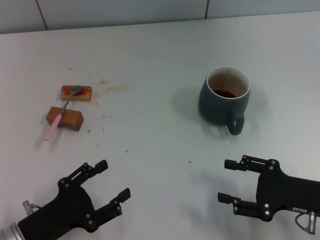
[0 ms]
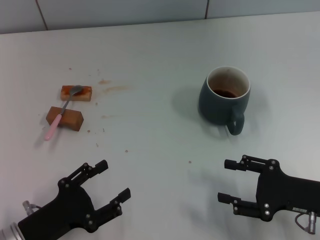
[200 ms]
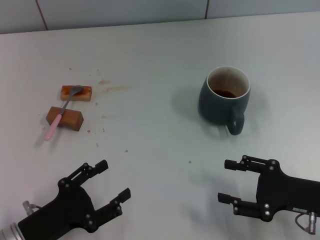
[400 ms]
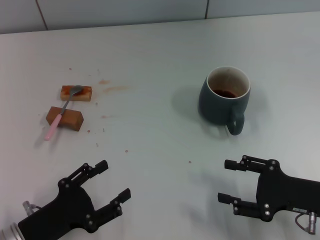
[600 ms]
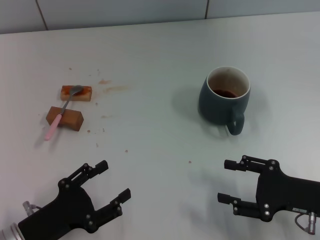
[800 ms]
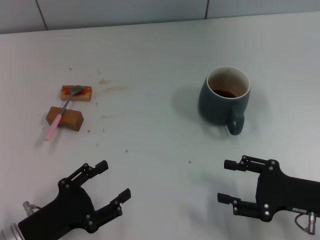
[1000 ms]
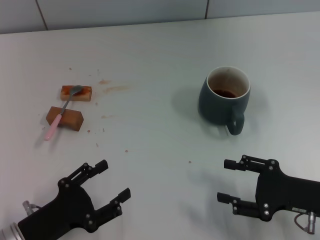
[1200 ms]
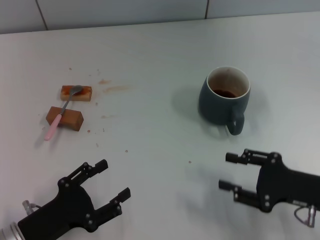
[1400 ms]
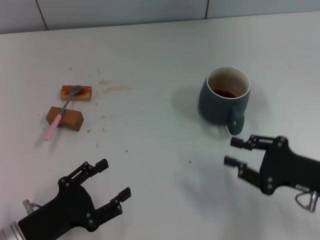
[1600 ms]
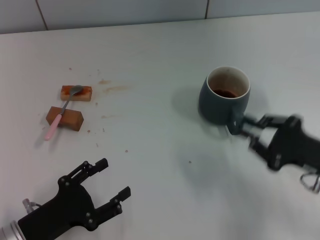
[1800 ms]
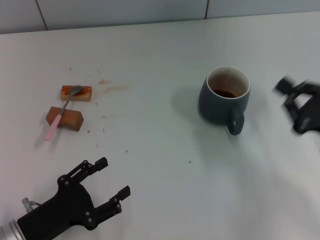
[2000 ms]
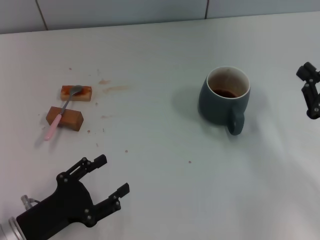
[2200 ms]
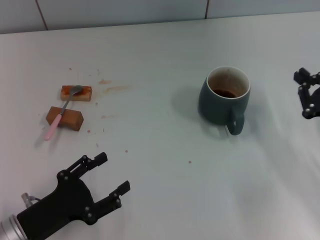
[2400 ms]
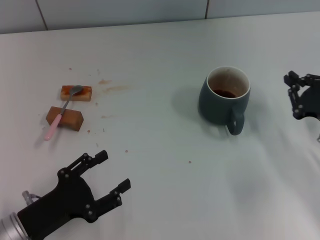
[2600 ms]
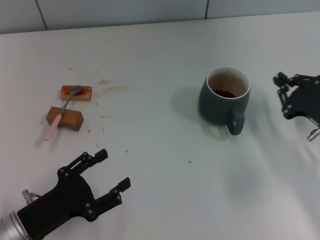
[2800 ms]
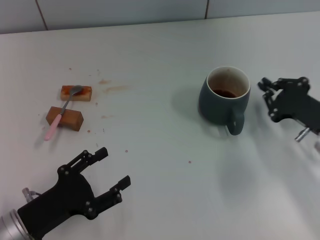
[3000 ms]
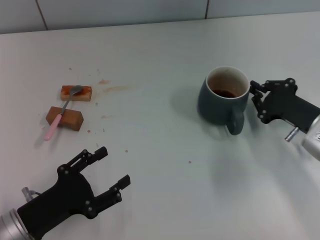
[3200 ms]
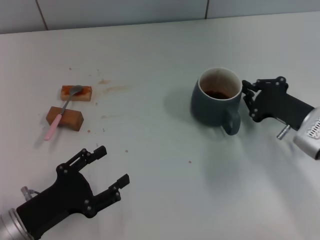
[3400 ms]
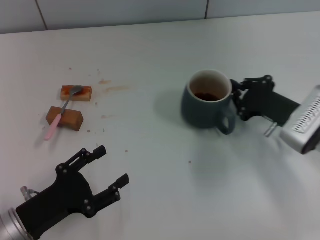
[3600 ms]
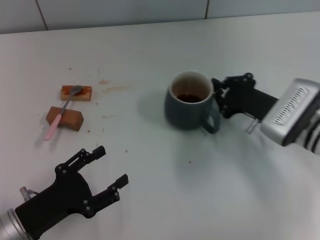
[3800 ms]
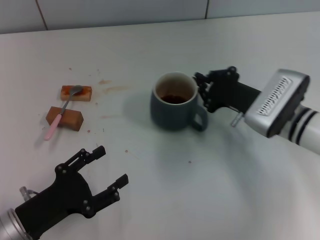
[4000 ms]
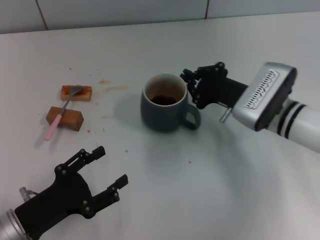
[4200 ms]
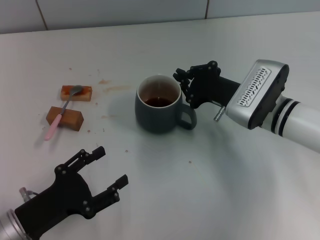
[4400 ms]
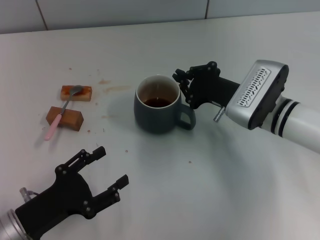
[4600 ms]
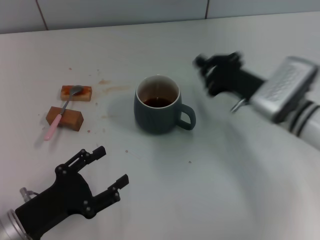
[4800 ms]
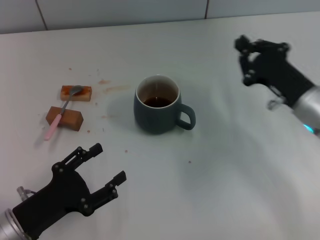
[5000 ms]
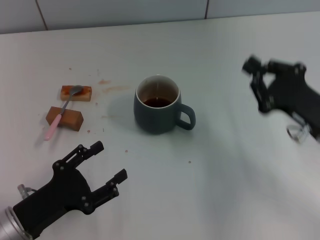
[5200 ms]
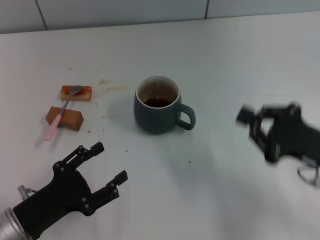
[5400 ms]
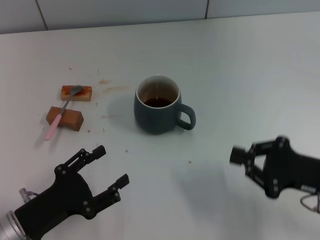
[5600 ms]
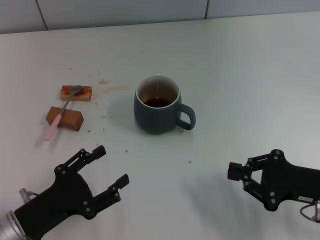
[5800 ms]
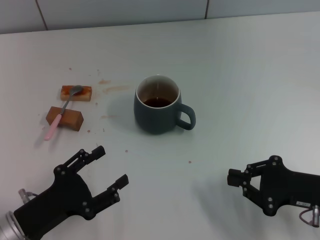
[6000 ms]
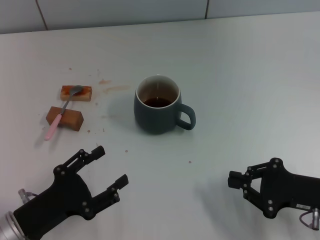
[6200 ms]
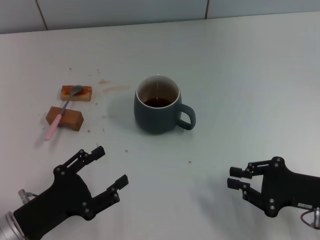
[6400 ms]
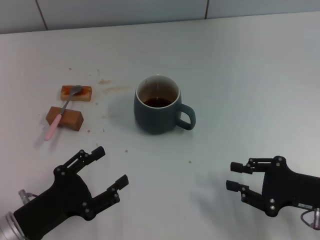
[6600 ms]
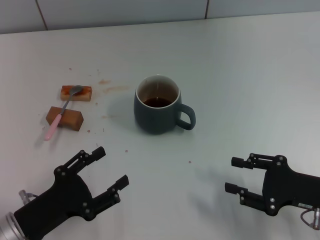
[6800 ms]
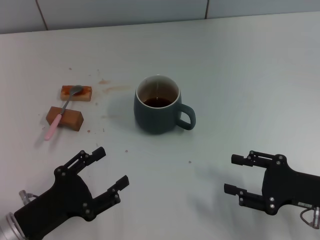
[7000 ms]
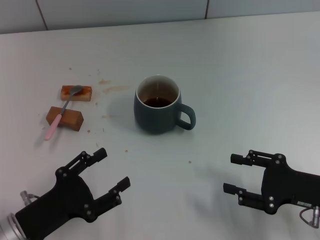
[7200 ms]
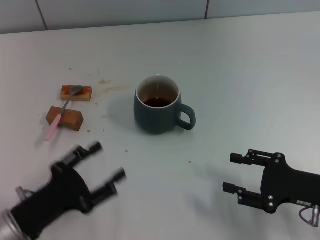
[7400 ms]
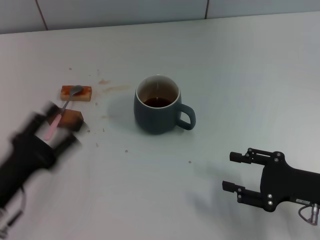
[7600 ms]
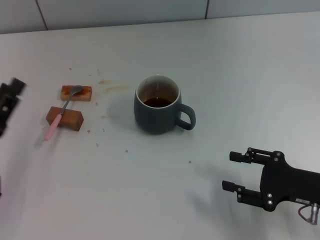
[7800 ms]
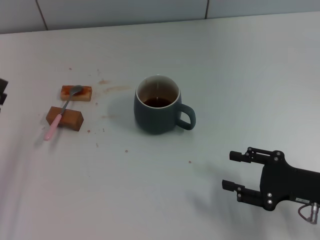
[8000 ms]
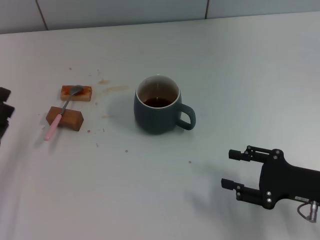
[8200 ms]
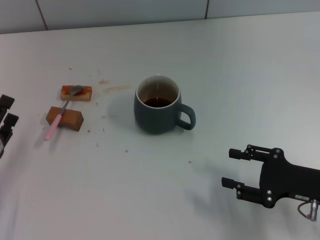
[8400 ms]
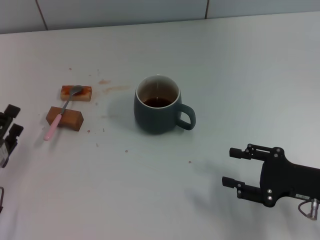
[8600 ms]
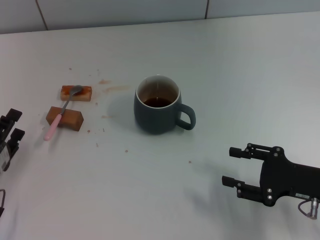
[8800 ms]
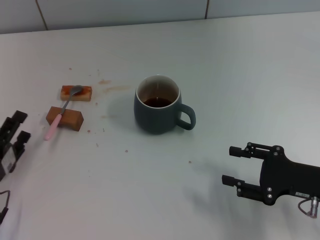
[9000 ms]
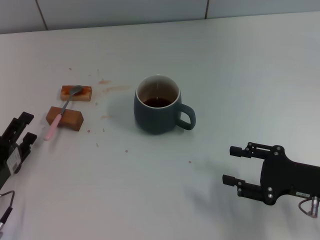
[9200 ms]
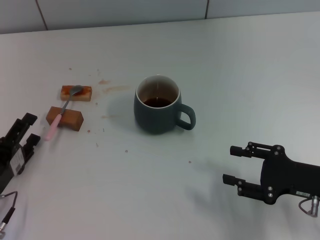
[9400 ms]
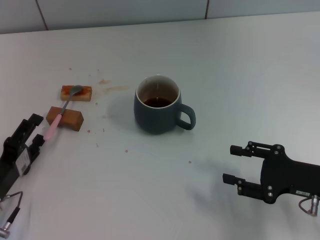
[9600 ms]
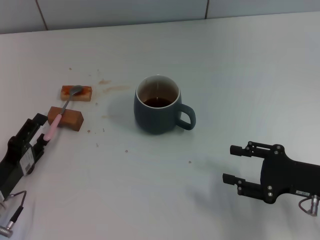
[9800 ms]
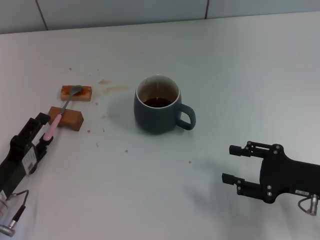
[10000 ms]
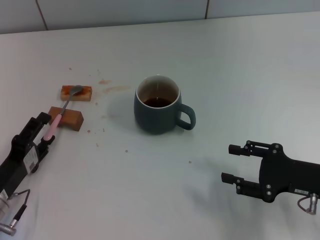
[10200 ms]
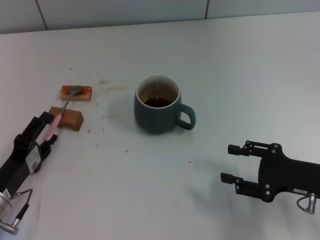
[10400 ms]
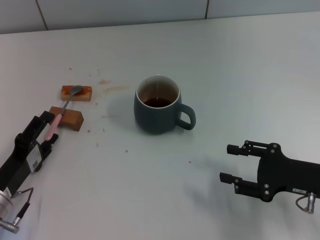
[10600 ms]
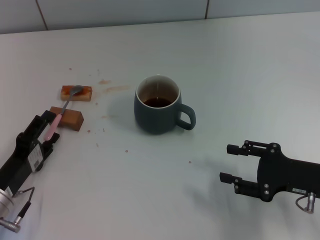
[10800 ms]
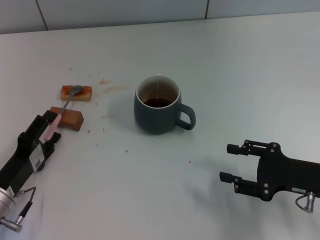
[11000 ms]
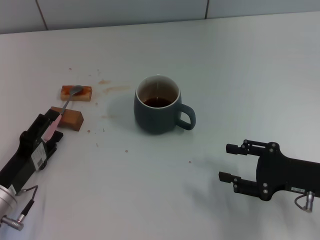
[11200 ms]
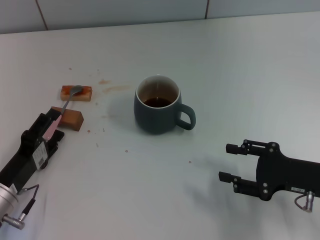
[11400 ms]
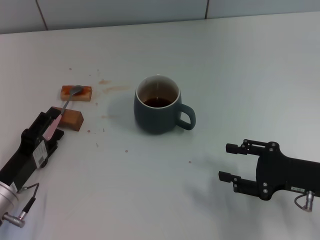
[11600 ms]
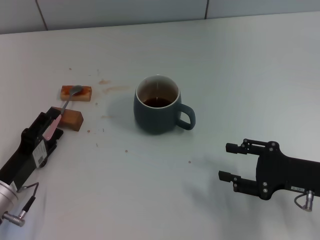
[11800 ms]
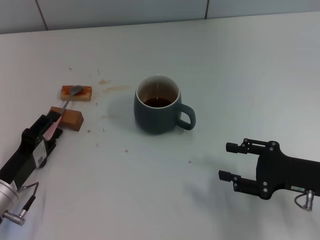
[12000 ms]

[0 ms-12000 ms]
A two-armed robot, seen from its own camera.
Task of the whole recording: Move the grey cup to the center, lift the pink spoon, stir it three times in the cup, and put the spoon into the cup.
Step, 0 ms to 4400 ms: Move the cup with coffee to the center of view with the right gripper.
0 ms to 1600 ms: The grippers make only small movements.
1600 ms to 3000 ms: The right gripper heads forward, covering roughly 10 cm, and closes up.
3000 ms to 4400 ms: The right gripper goes roughly 15 cm to the left and forward.
4400 ms to 6000 ms: The right gripper shifts about 20 cm backward and to the right.
6000 ms to 7600 ms: The right gripper opens.
7600 ms to 9000 ms: The left gripper ends up some 5 cm from where it was.
9000 ms to 12000 ms: The grippers stay close to where they were, moving slightly.

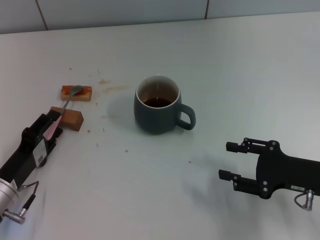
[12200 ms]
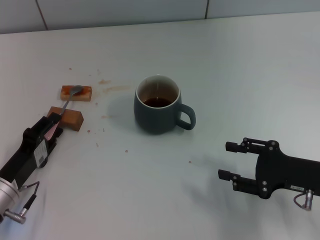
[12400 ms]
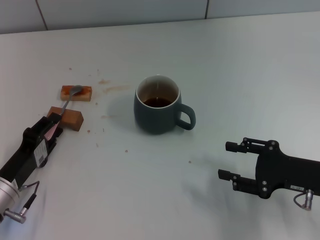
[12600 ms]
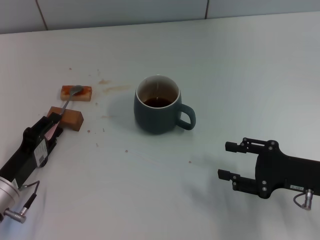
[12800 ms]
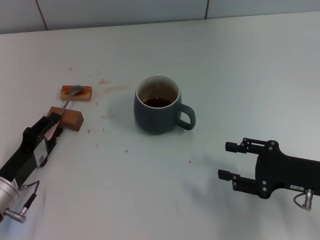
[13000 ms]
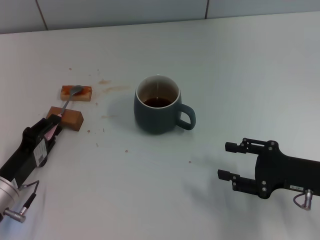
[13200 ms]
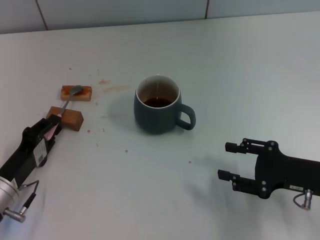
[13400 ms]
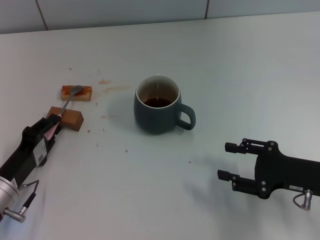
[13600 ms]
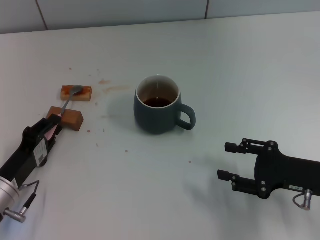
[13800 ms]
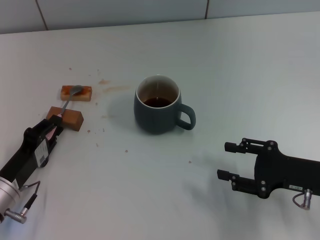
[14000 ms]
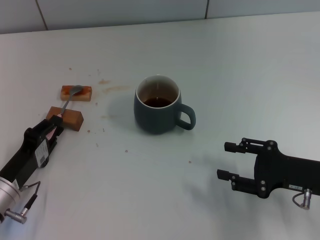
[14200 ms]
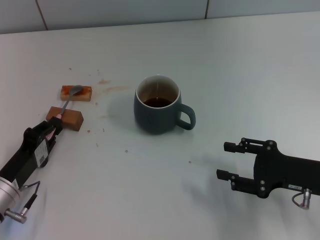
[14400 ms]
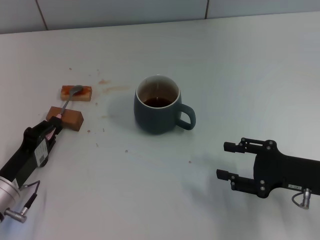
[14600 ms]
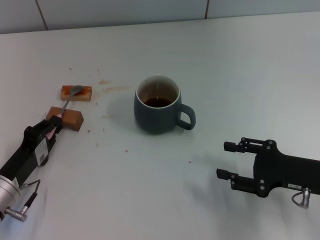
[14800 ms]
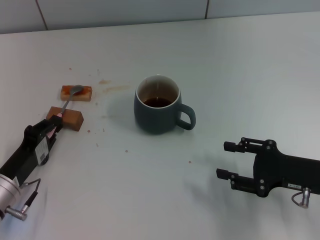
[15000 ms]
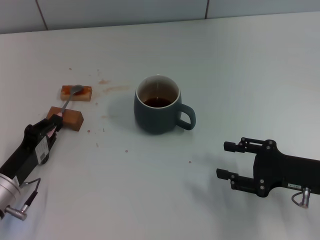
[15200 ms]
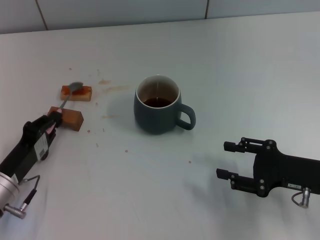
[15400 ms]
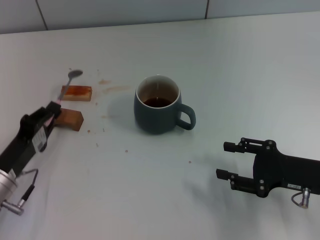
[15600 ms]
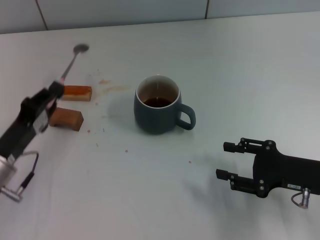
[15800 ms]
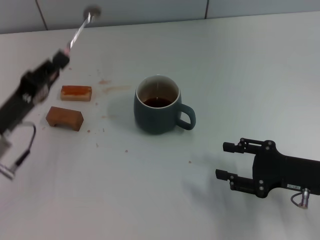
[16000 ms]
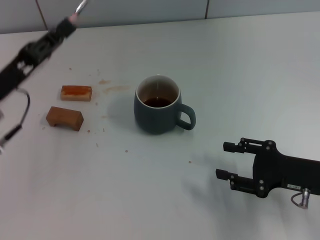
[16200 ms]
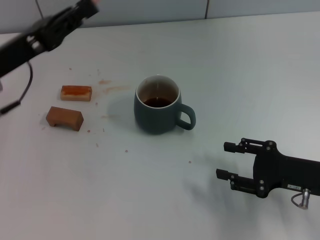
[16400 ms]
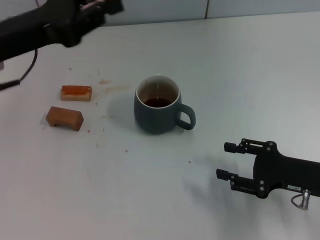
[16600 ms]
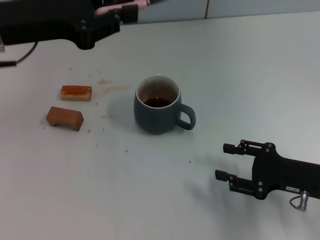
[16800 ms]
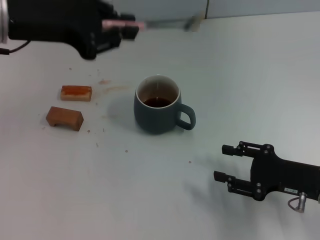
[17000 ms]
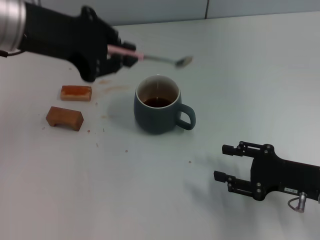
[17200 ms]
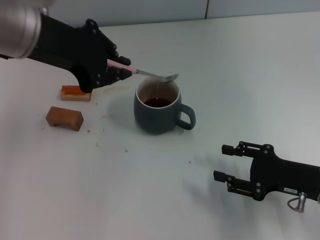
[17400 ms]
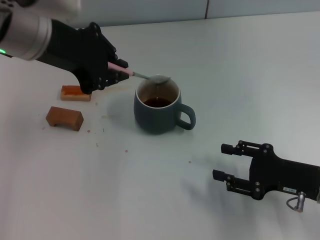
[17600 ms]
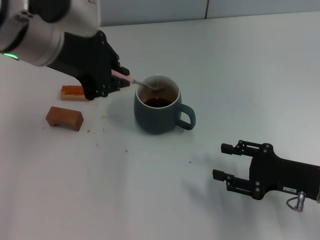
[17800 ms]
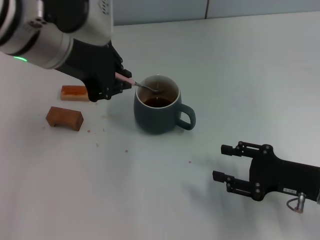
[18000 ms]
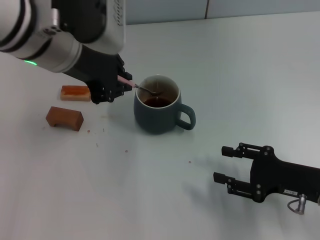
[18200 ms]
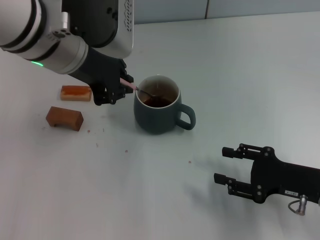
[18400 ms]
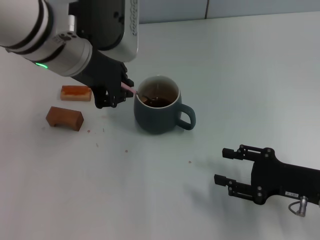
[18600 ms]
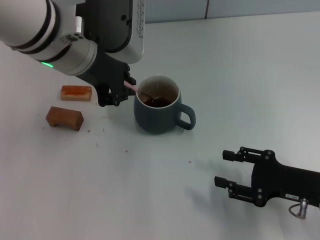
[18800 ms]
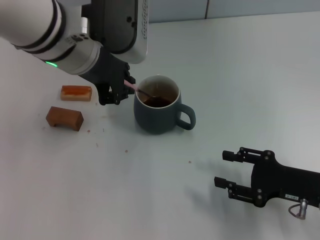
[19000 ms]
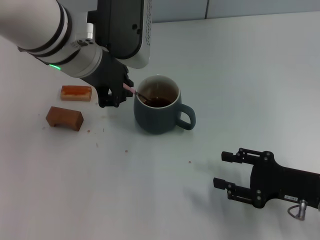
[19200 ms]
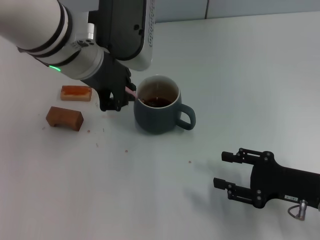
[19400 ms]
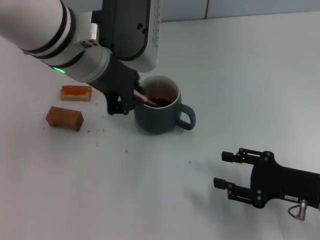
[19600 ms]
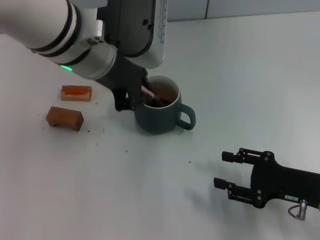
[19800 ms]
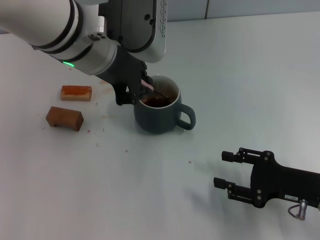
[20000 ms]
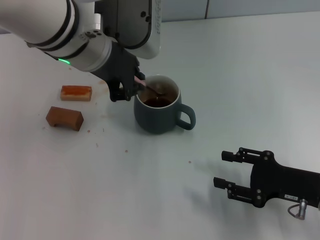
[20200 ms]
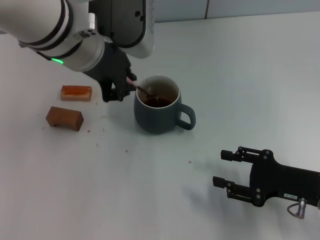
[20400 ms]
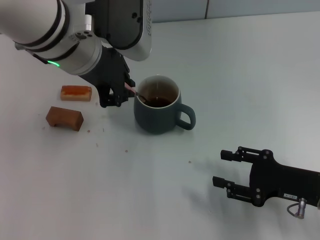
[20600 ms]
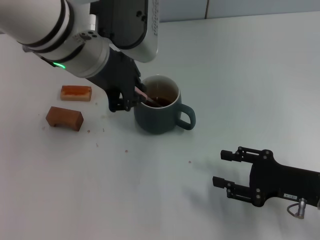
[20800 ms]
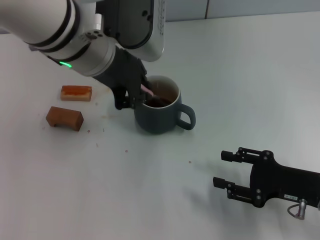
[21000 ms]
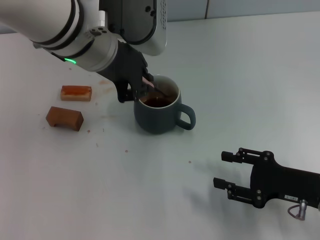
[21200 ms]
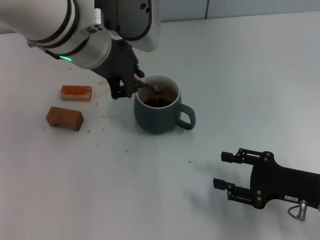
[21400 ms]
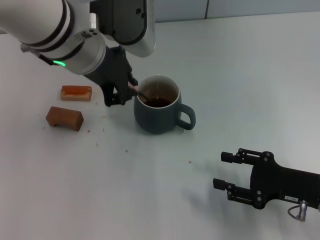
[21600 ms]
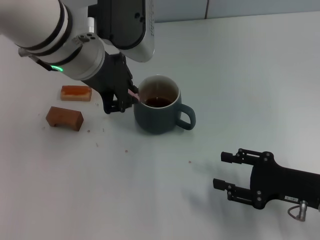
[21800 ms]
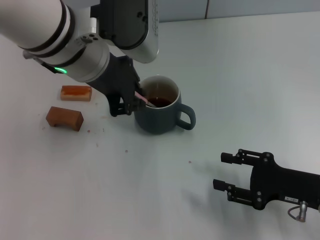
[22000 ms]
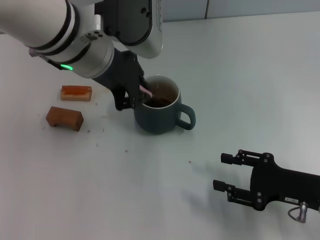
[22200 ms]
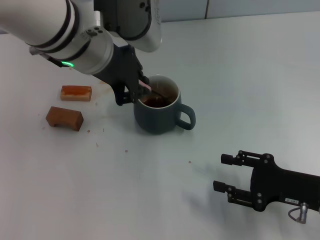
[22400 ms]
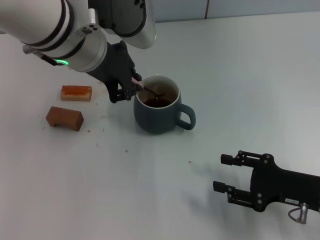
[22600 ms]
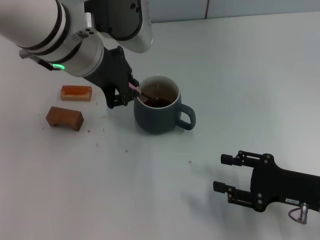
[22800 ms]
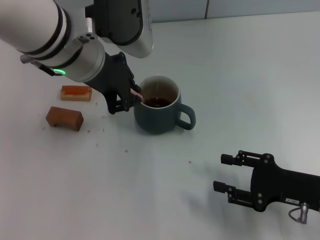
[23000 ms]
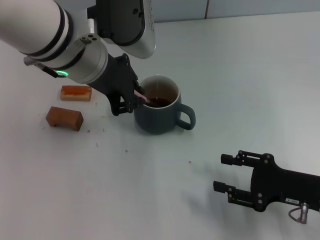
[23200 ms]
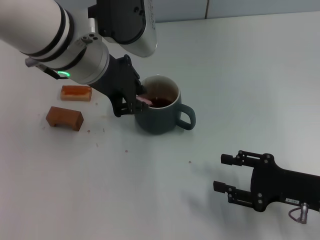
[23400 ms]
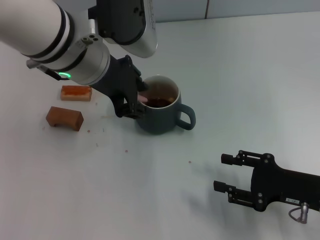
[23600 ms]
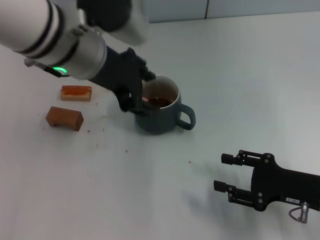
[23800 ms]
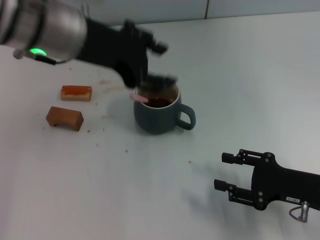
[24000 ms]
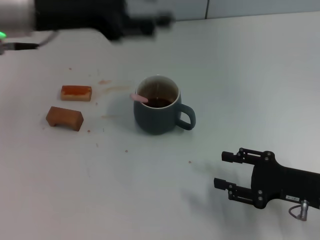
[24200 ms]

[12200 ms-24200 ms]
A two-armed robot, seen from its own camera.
Task of the whole recording: Move the grey cup to the center, lift the pink spoon, stir it three times in the cup, and put the spoon into the cup.
Step, 12200 ms to 15200 ms: Pick up the spoon with the left gripper.
Step, 15400 ms to 23600 ms: Stir the coffee in the cup with the left gripper.
12200 ms to 13800 ms: The left gripper closes.
13800 ms to 15200 ms: Both grippers stay about where they are.
15200 ms to 16600 ms: The left gripper is displaced upward and forward by approximately 25 cm.
16600 ms to 18200 ms: The left gripper goes about 10 cm to the right.
18200 ms to 22600 ms: There are only small adjustments of the grippers.
22600 ms to 24200 ms: The left gripper shifts roughly 5 cm to the left, and opens.
